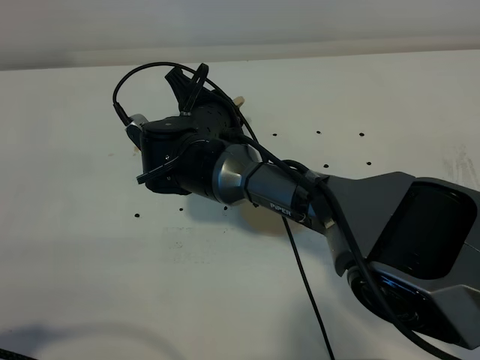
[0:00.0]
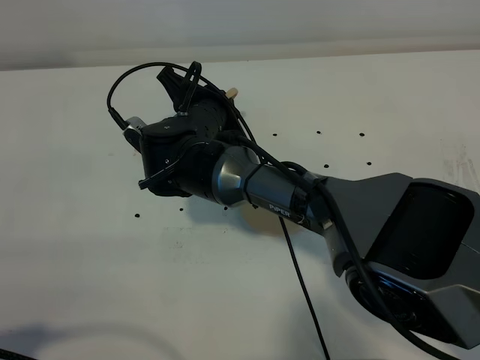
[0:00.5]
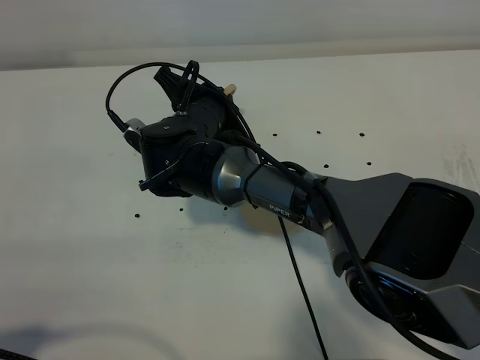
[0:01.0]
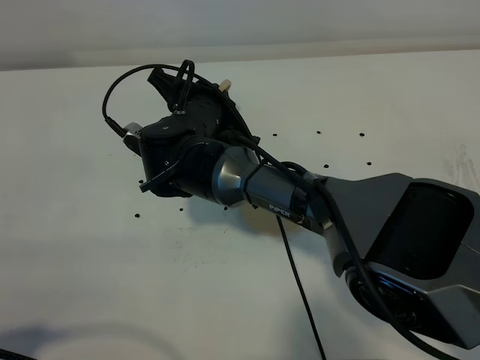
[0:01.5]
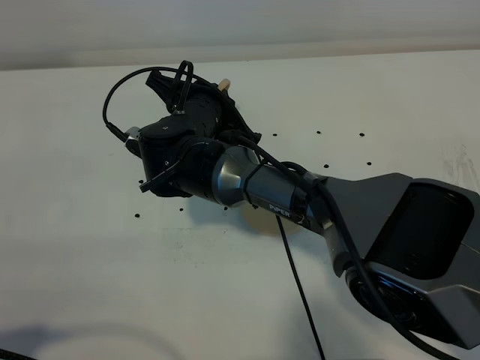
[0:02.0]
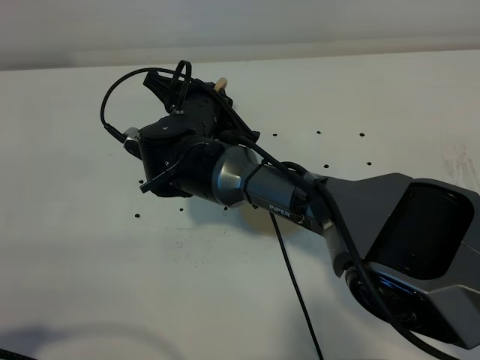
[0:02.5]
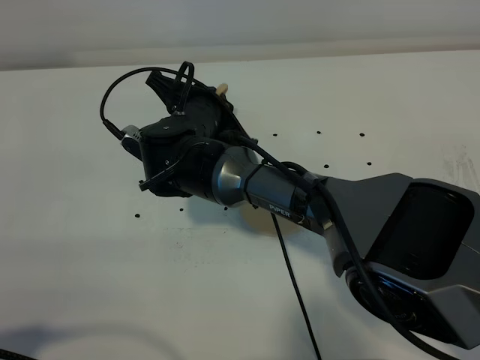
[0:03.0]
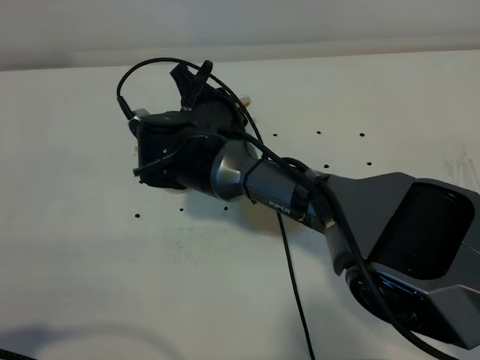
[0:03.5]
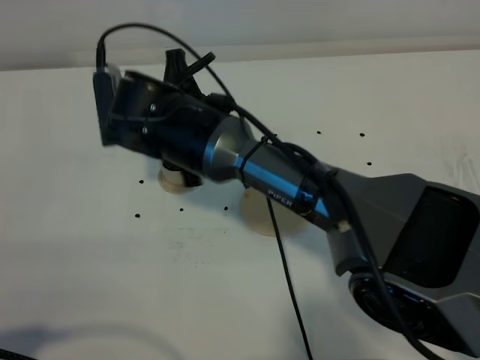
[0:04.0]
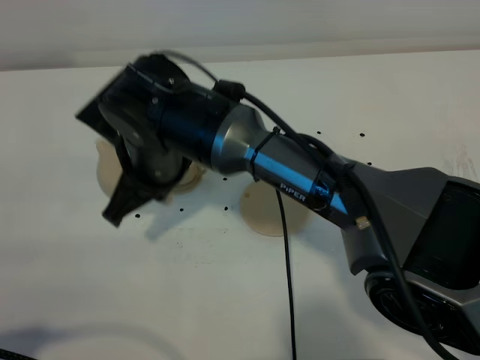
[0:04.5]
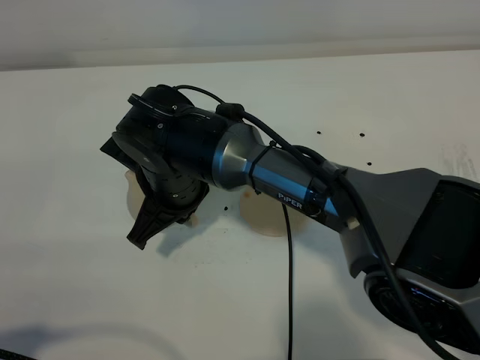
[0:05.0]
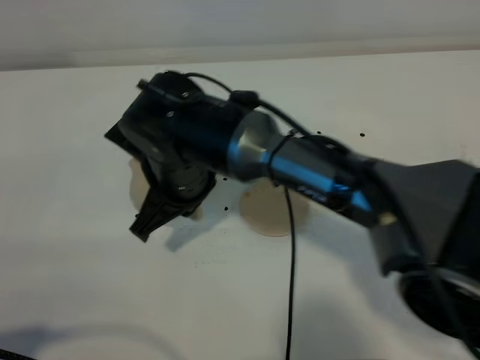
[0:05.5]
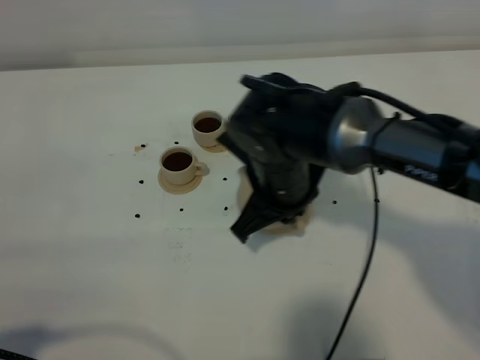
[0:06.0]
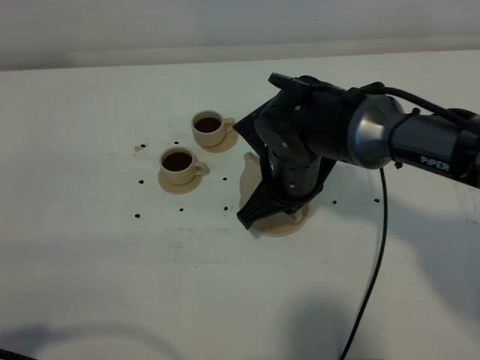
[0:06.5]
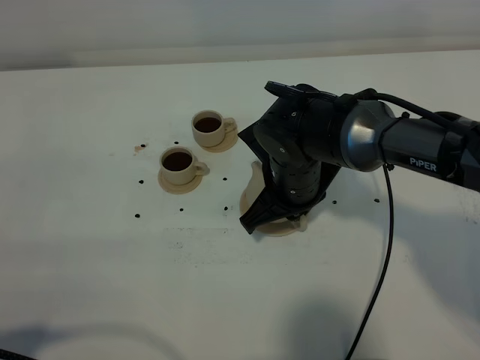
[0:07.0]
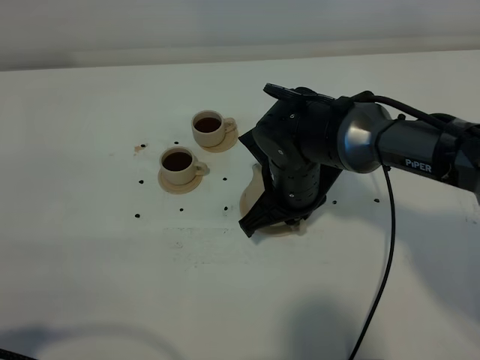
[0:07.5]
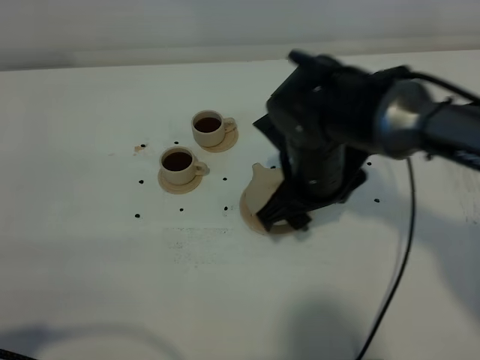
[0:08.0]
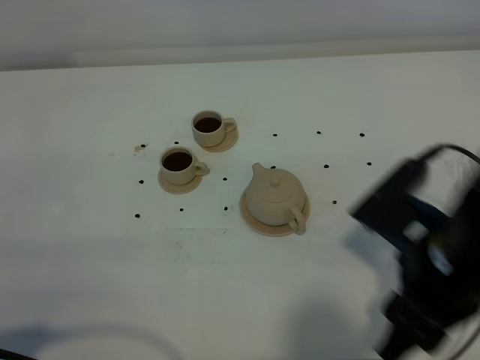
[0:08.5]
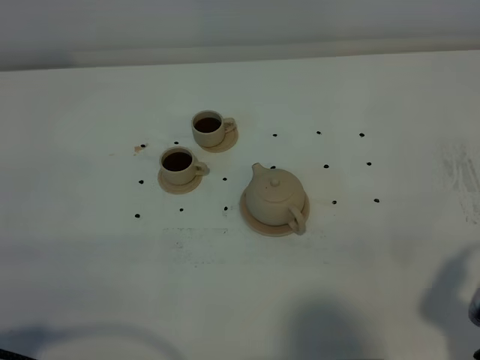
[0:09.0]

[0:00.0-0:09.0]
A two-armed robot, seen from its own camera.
Task of the whole recording: grasp the brown teapot and pour the tea into the two brown teacups one by one, put the brown teapot back in its original place.
Step, 0:00.0 to 0:03.5: Pour tea into the teacup with the right gripper.
0:00.0 to 0:02.0: The grippers make only small movements.
0:02.0 to 0:04.5: The right gripper travels backward by roughly 5 cm.
0:04.5 to 0:07.0: The right gripper travels to the right by roughly 15 cm.
0:07.0 to 0:09.0: The right gripper is displaced backward and to the right by approximately 30 cm, and opens its fingers.

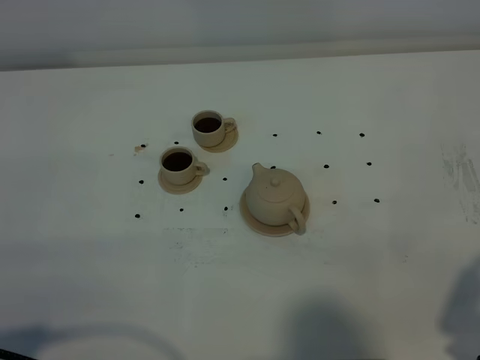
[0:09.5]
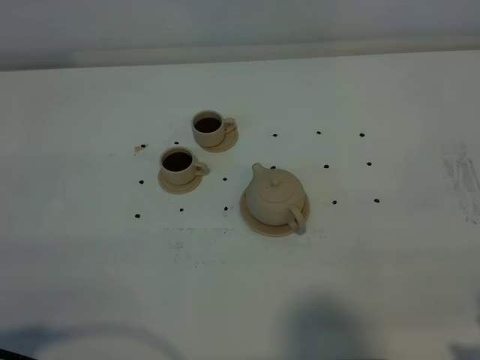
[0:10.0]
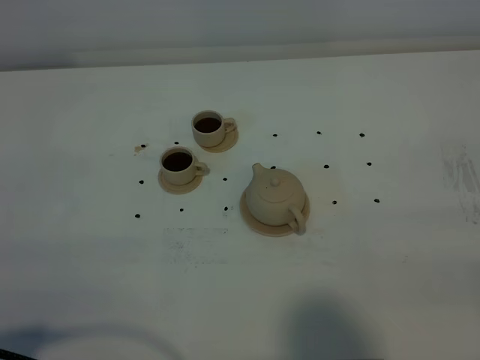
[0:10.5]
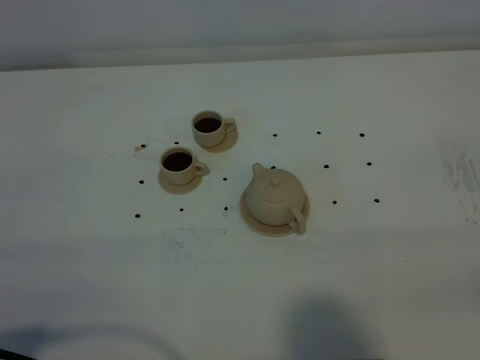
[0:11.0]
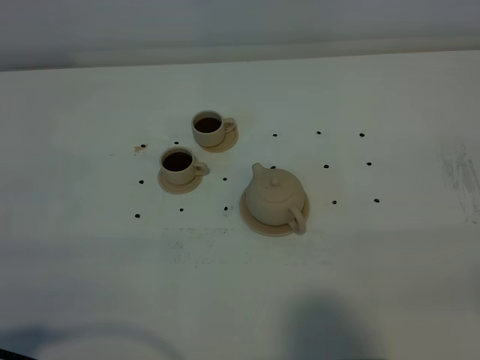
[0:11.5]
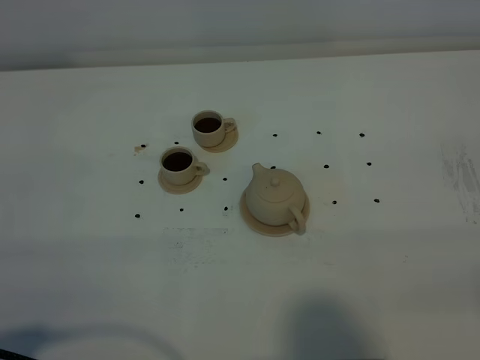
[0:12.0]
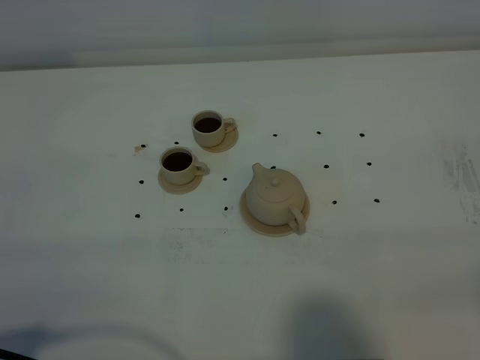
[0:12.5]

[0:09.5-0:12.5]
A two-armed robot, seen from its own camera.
Task of the whole recording: grasp the brown teapot and pour the tea into the two brown teacups one by one, put the brown teapot back in its original place.
0:09.5 to 0:11.0: The right gripper changes place by approximately 5 cm.
0:11.0 to 0:12.5: Both grippers stay put.
